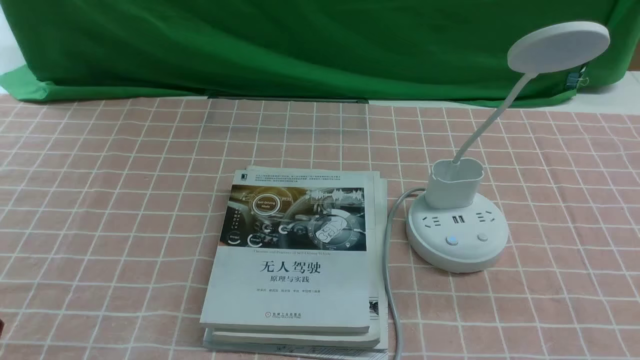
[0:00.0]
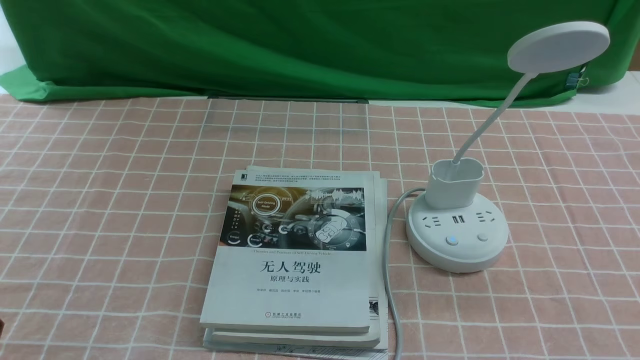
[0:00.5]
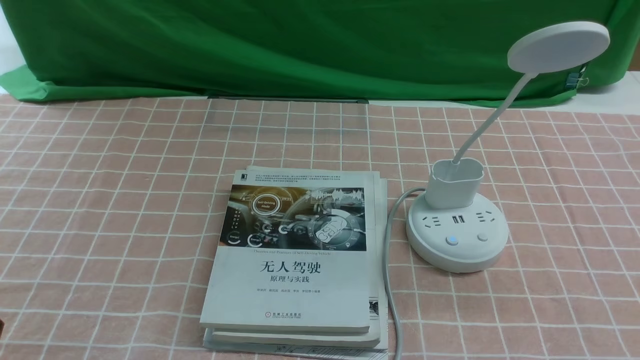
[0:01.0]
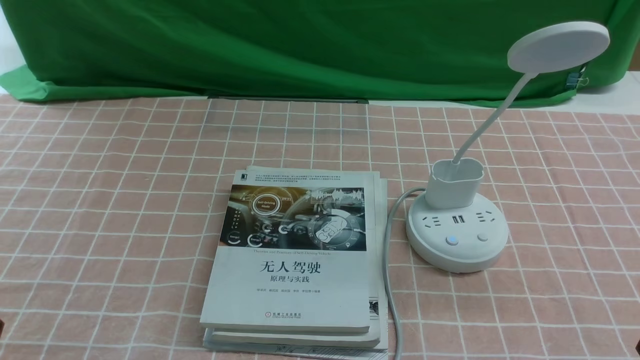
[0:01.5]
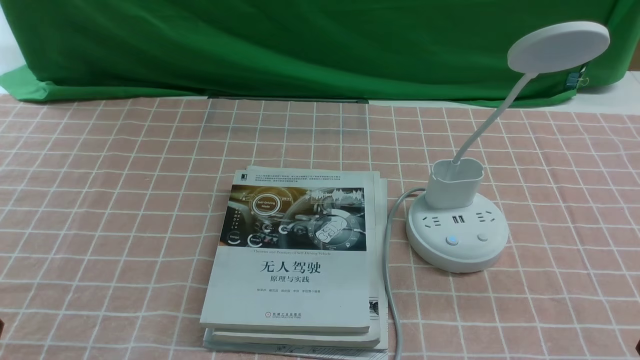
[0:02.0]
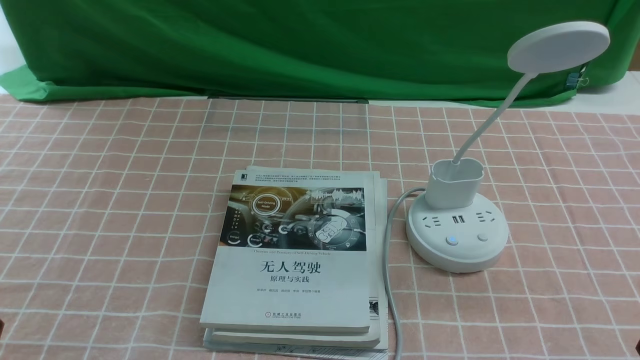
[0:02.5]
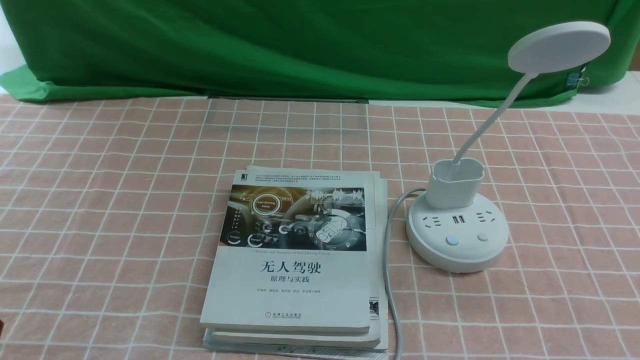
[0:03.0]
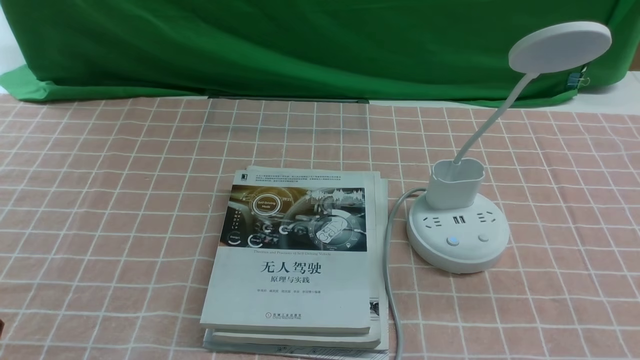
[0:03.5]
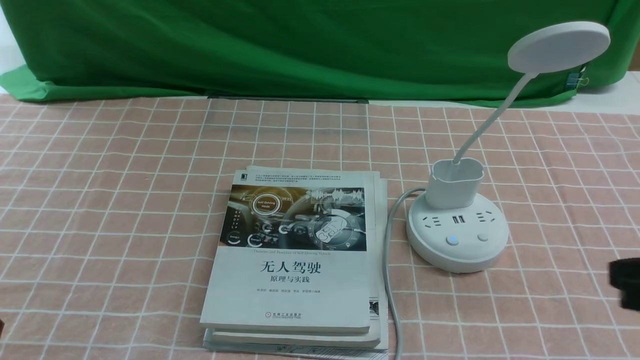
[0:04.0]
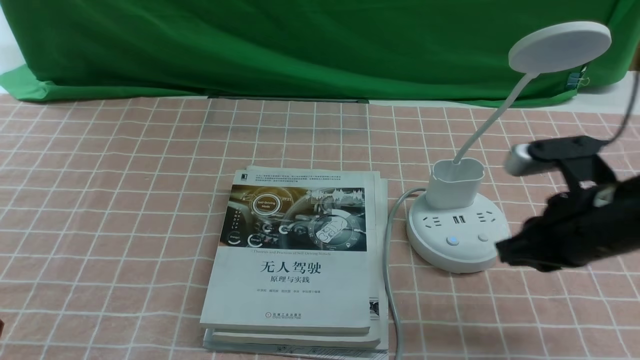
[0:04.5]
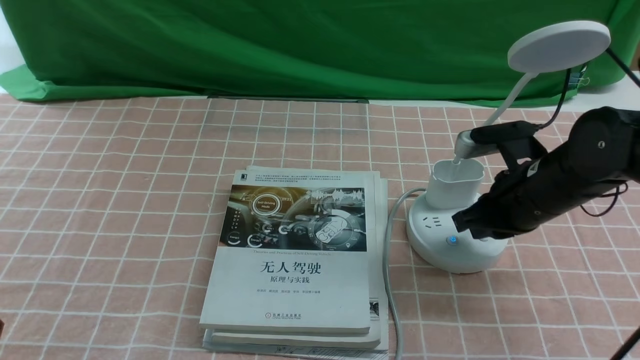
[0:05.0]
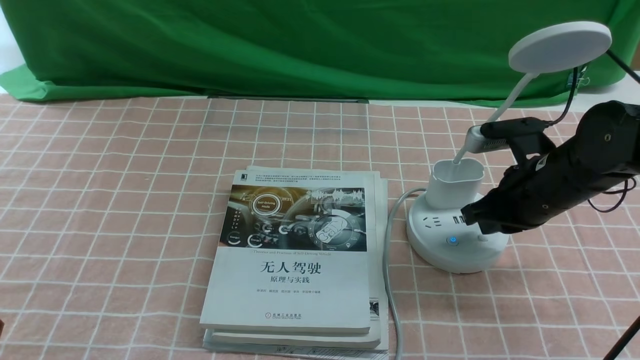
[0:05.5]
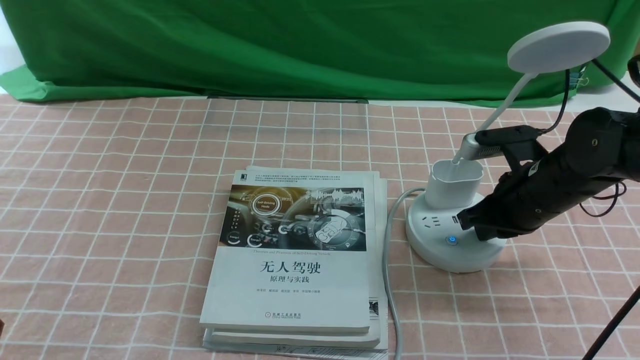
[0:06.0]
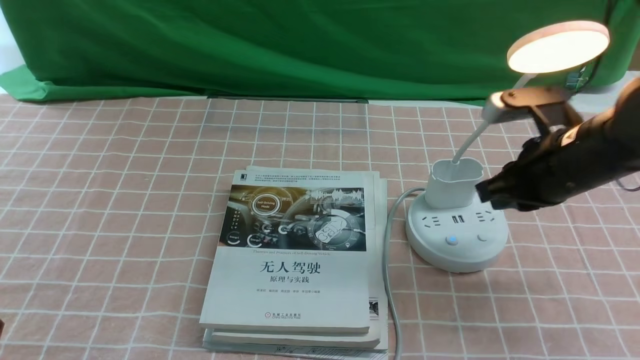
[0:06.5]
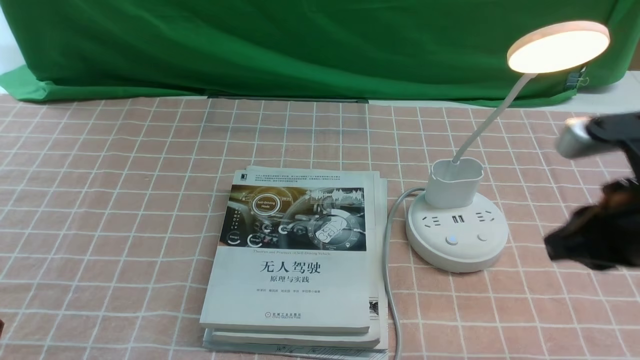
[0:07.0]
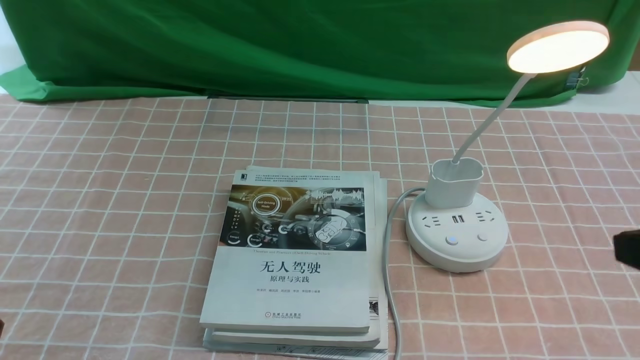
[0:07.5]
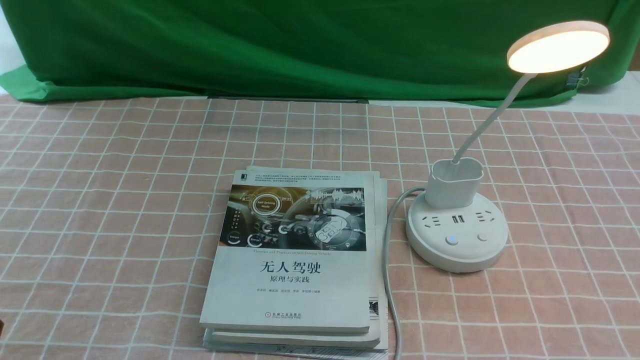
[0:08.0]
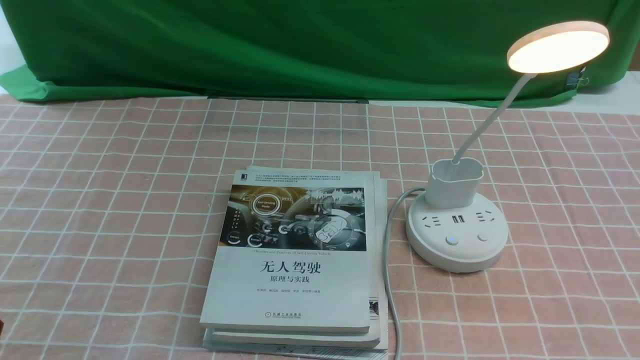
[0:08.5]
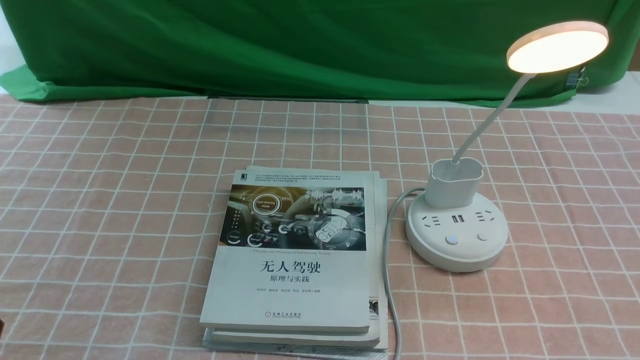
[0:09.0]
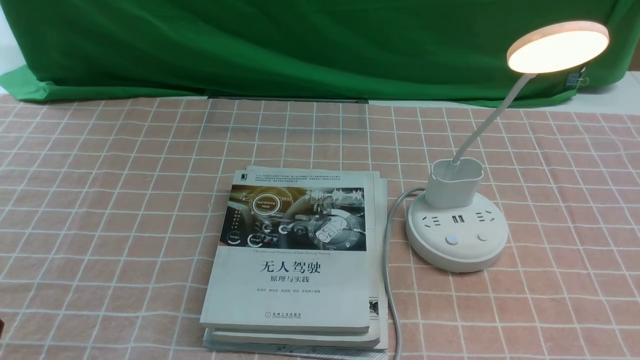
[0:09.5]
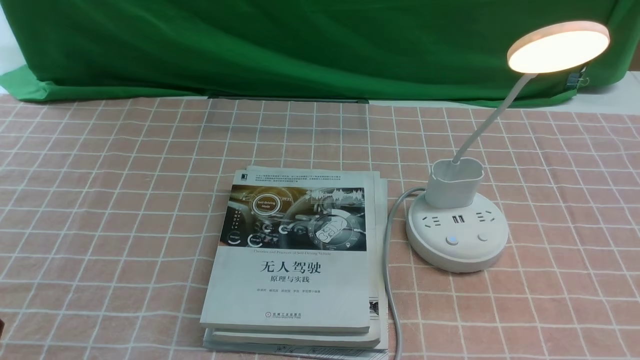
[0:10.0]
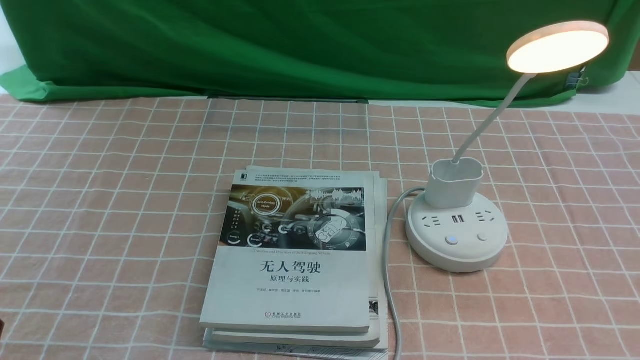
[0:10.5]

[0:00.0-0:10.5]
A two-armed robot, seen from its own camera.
Step, 0:00.0 to 0:06.0: use the right arm to press the button switch on the lamp holder.
0:00.0 to 0:02.0: The two grippers keep their place.
0:02.0 to 0:04.0: The right gripper is displaced forward and upward by approximately 15 cm, and closes its fingers.
0:04.0 to 0:06.5: The right gripper travels forward by roughly 15 cm.
0:06.5 to 0:08.5: The right gripper shifts about 25 cm backward.
